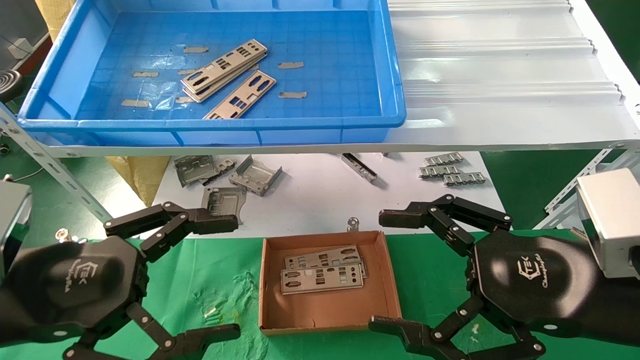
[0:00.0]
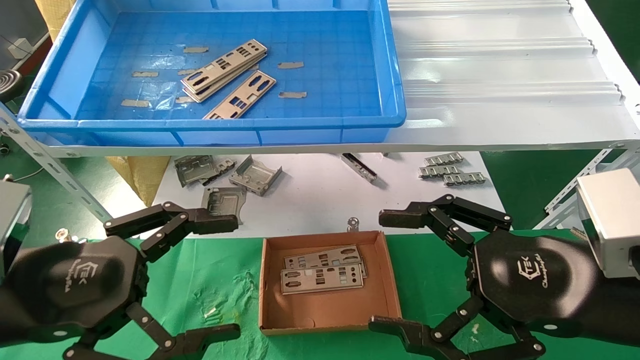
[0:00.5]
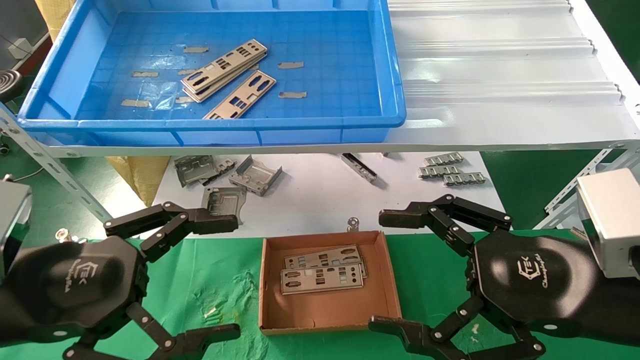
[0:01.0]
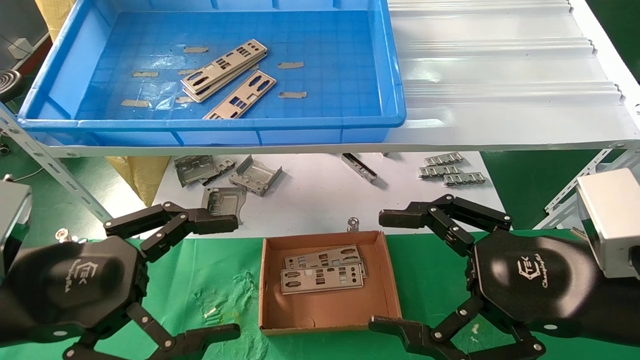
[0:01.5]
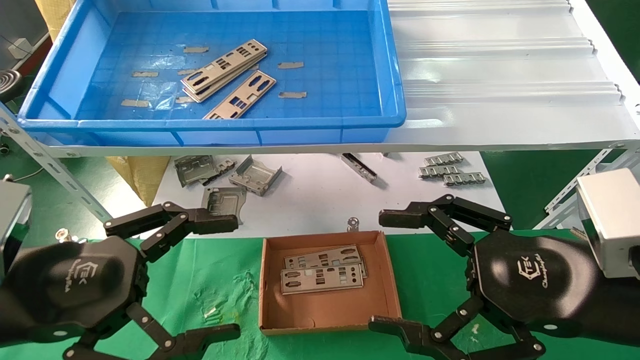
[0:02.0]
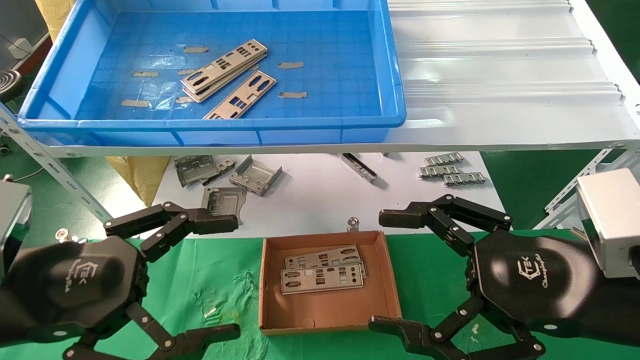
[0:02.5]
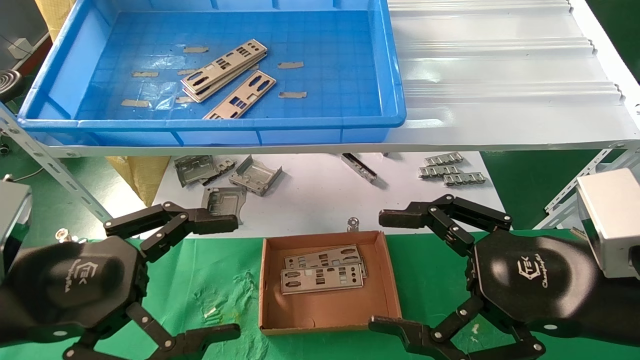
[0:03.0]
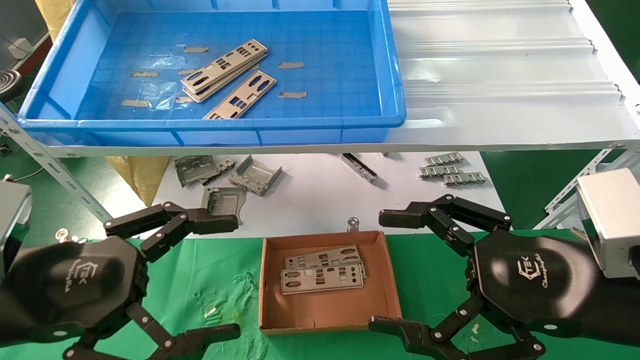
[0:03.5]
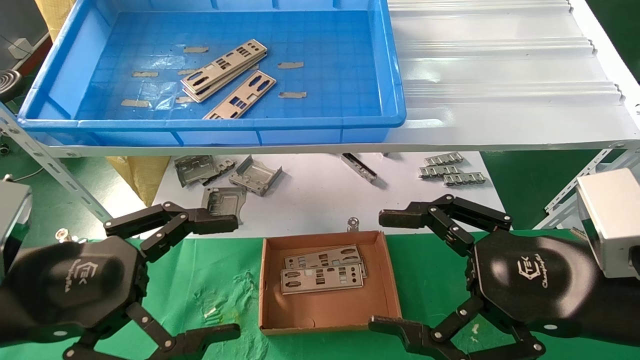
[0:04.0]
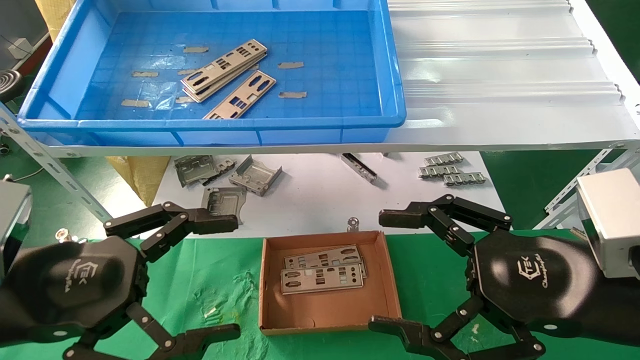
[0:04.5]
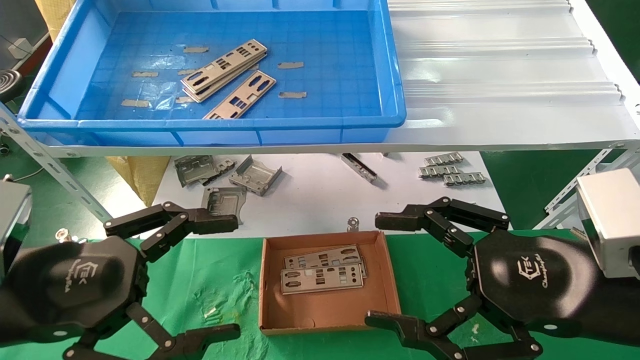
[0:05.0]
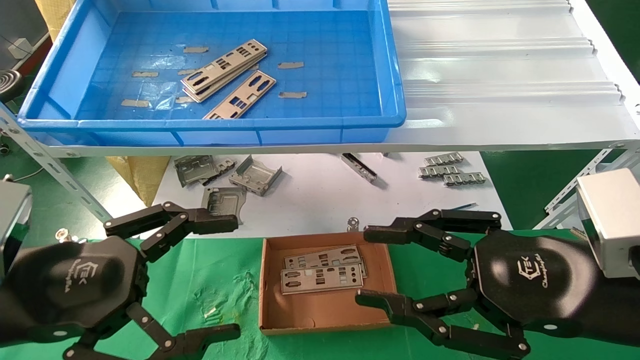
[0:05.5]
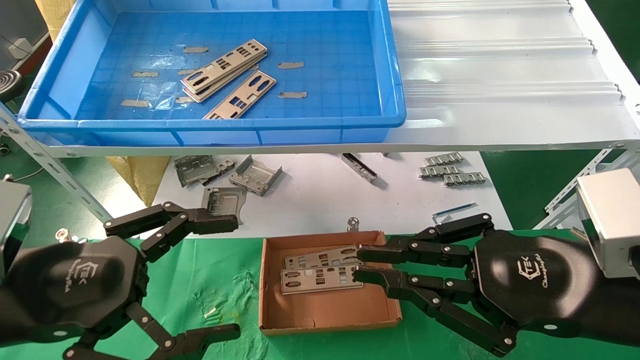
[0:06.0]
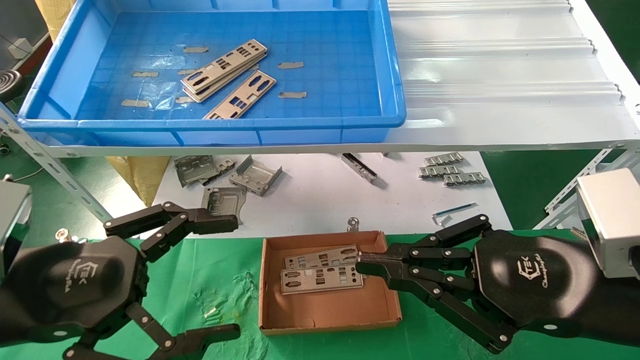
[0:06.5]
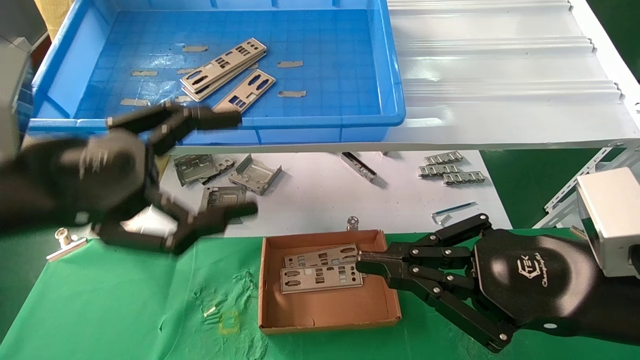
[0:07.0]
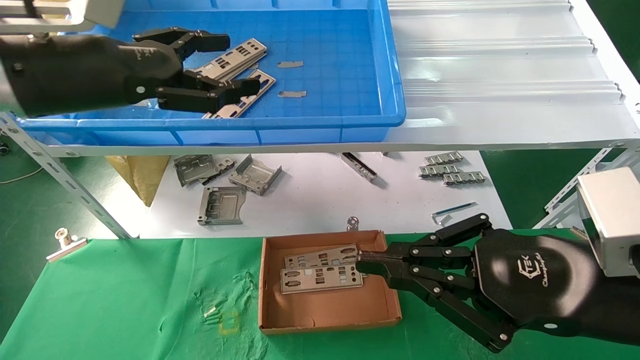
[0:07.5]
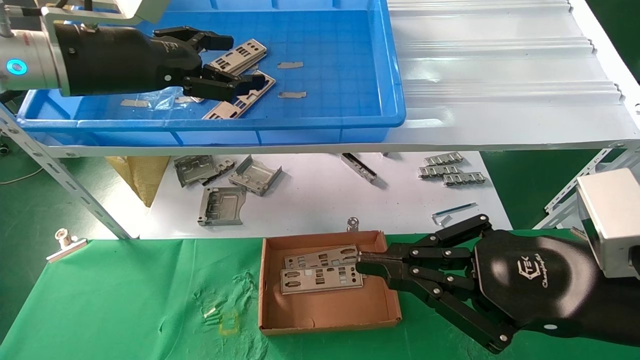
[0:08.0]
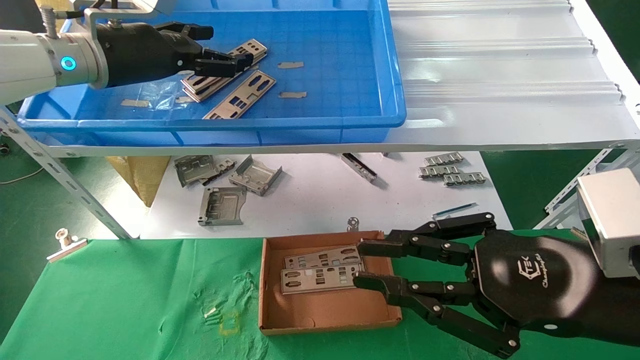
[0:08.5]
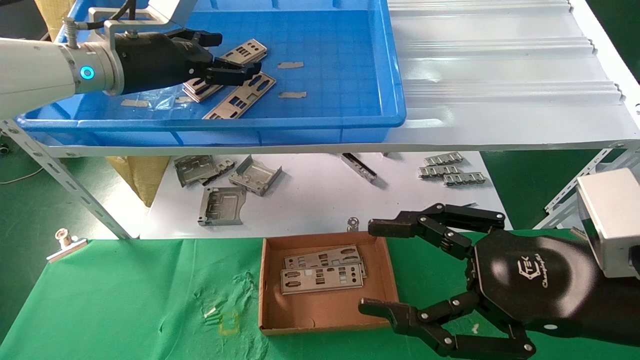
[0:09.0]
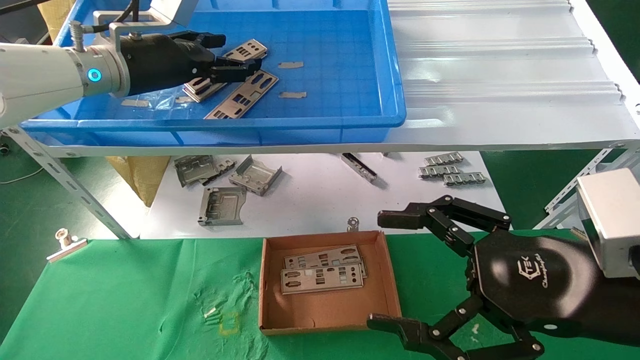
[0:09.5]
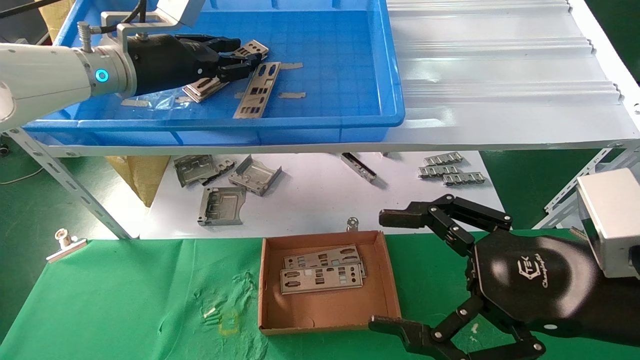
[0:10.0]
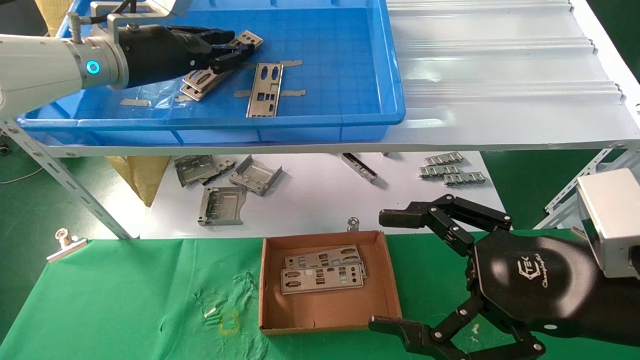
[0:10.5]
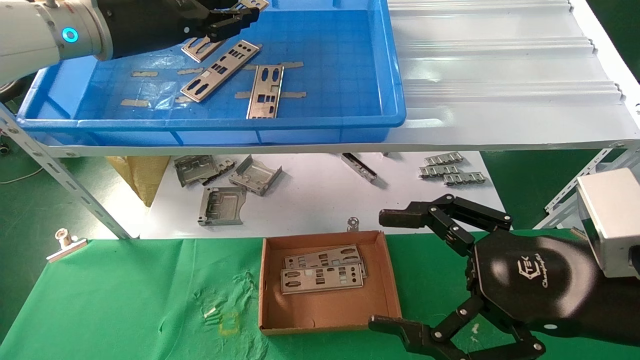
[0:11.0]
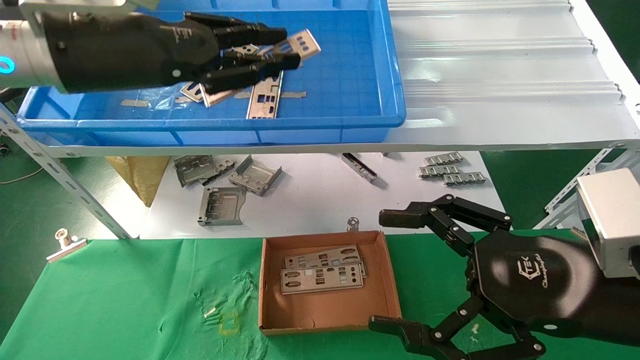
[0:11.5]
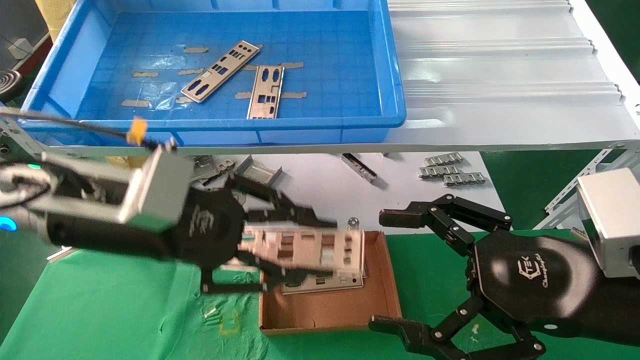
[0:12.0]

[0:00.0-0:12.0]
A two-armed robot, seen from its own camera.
Task of the whole recording: pick up the parts on the tray and put them in the cardboard box.
Step, 0:07.5 to 0:10.5: Pick up the IO bracket from the container box.
0:00.0 to 0:04.0: Neither gripper changes place.
0:04.0 to 0:06.0: The right gripper closes.
0:06.0 to 0:08.0: The left gripper moves forward and upward, about 25 cm.
0:08.0 to 0:10.0: The left gripper goes approximately 5 cm forward, and closes up; the right gripper opens up.
0:10.0 to 0:12.0: The left gripper heads backward and downward, covering roughly 15 cm.

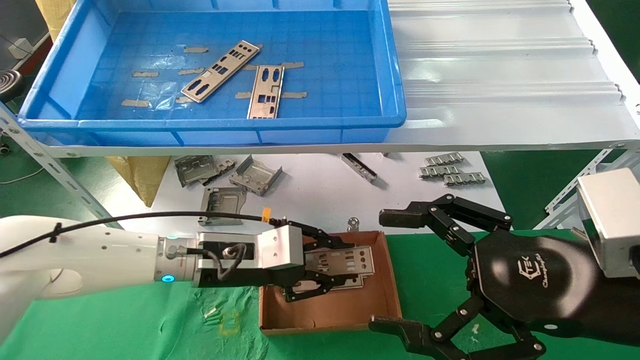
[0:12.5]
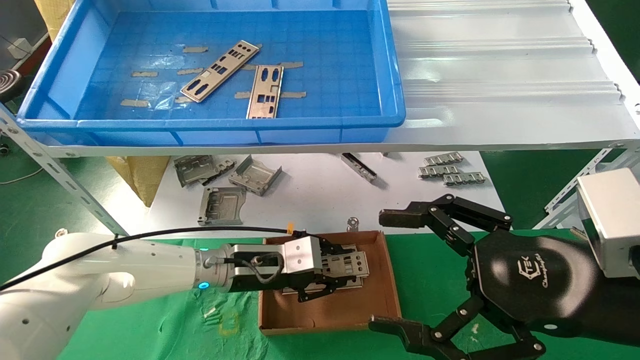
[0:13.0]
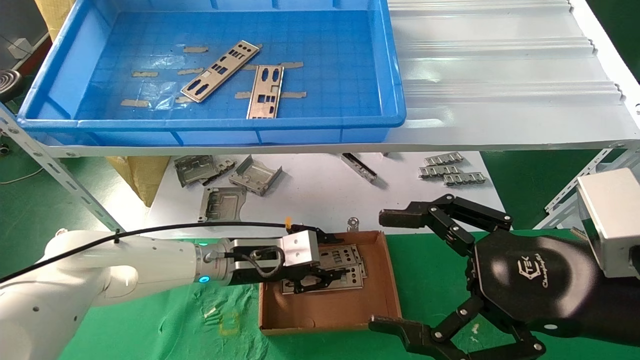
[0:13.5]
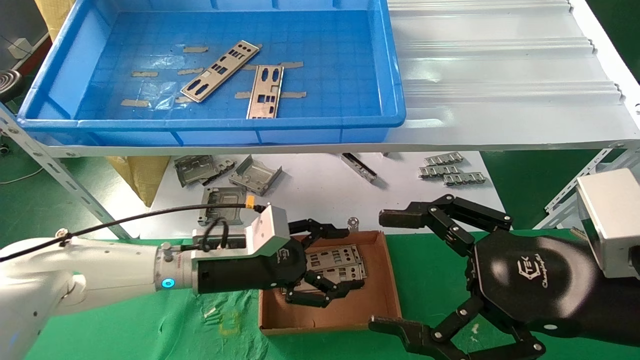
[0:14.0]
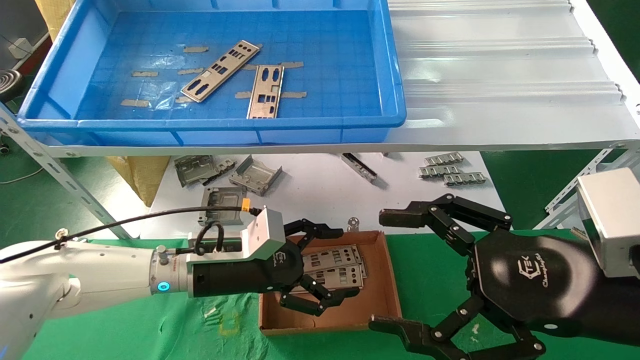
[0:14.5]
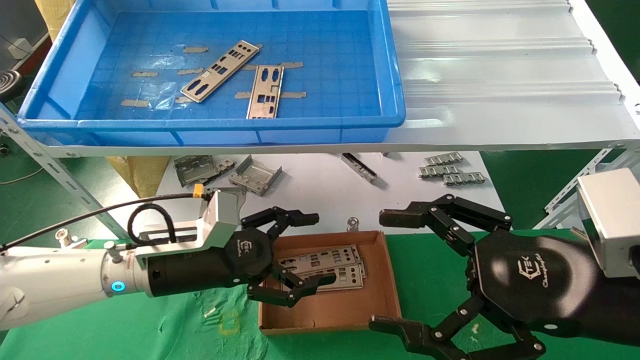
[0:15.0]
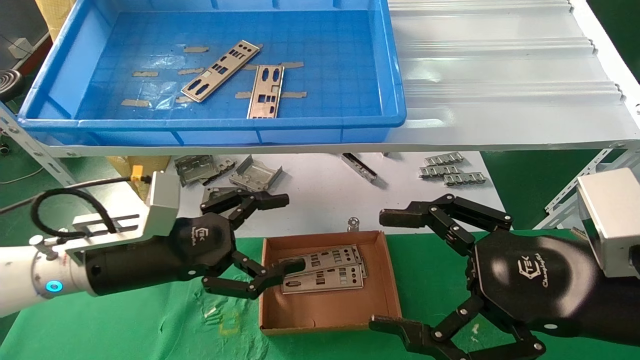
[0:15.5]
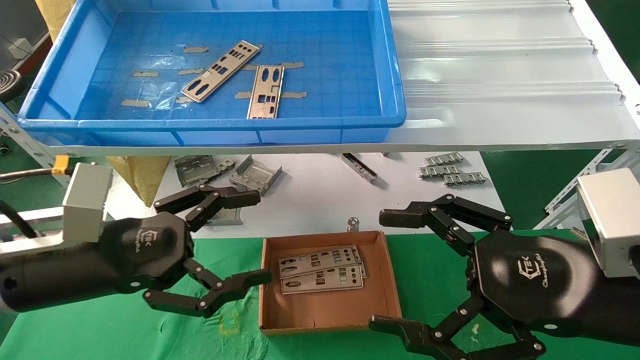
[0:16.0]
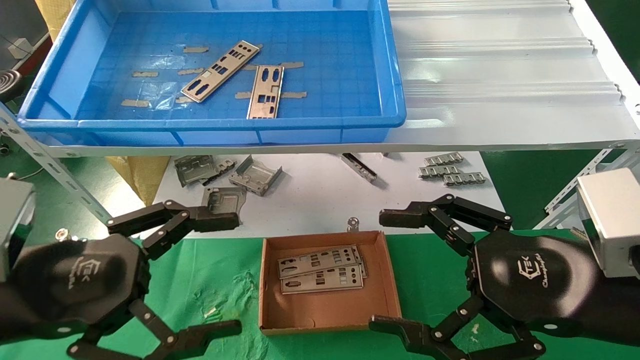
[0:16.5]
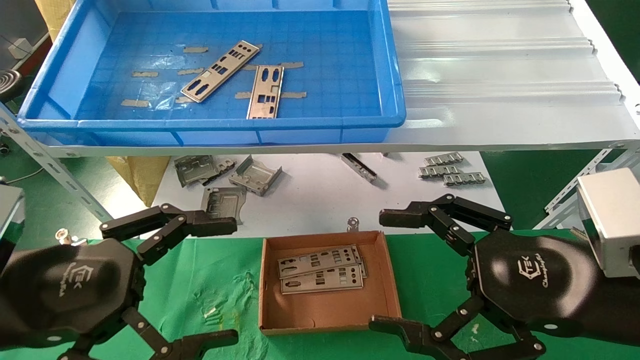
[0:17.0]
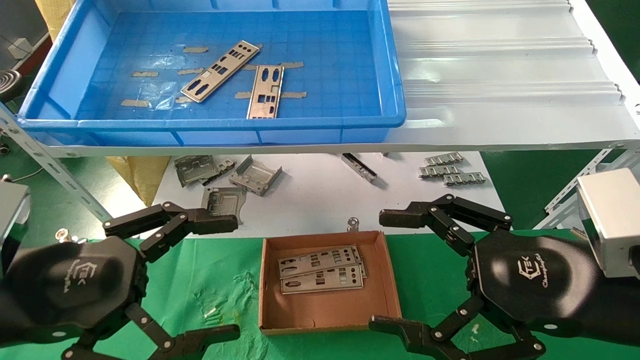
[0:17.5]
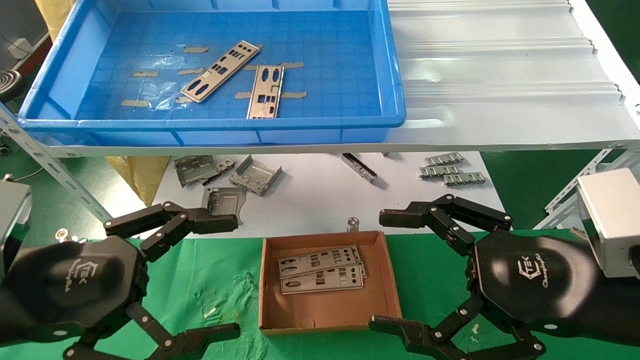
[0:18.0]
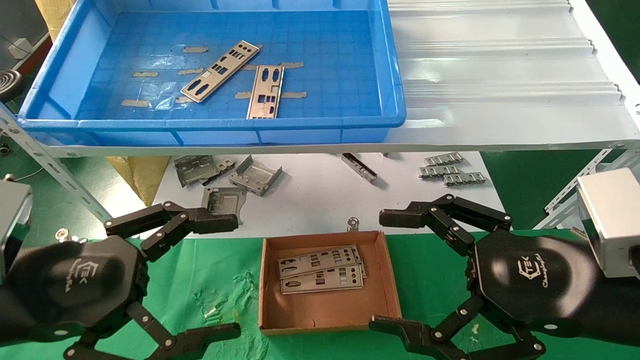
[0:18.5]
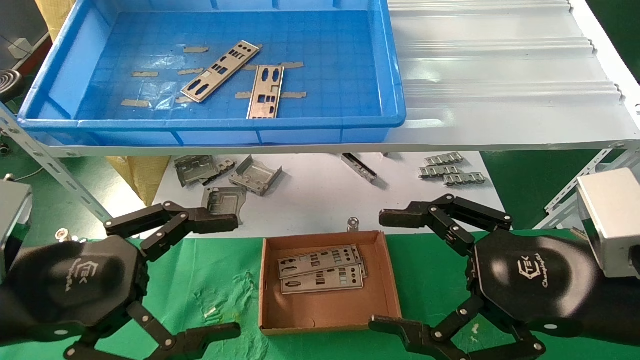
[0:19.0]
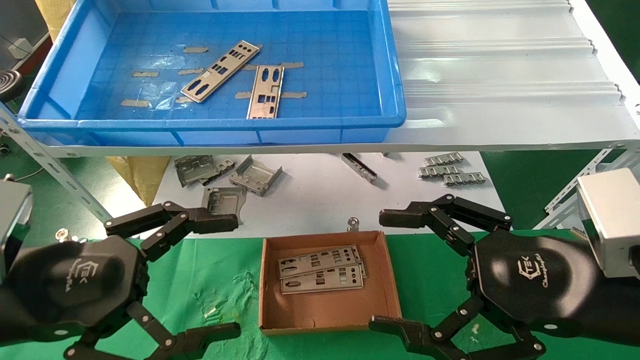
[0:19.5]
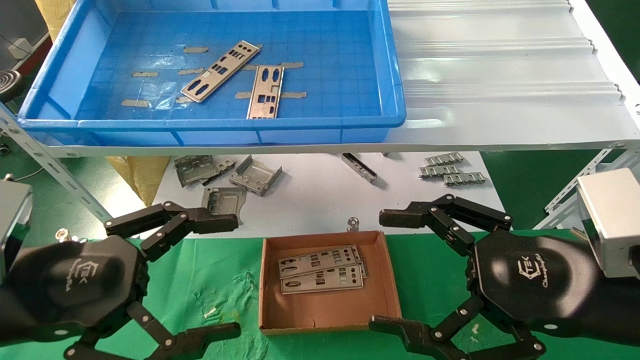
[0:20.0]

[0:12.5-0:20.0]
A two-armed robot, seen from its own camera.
Task of the whole recording: pick up the parts on the tray and put them in the cardboard box.
0:12.5 to 0:14.5: The left gripper opens.
0:14.5 to 0:16.5: The left gripper is displaced backward, to the left and upward by some 25 cm.
0:16.5 to 0:18.0: The grippers stay close to where they were, moving slightly.
0:18.0 to 0:20.0: The two grippers keep their place.
